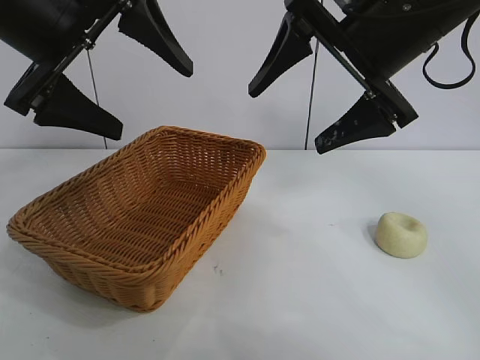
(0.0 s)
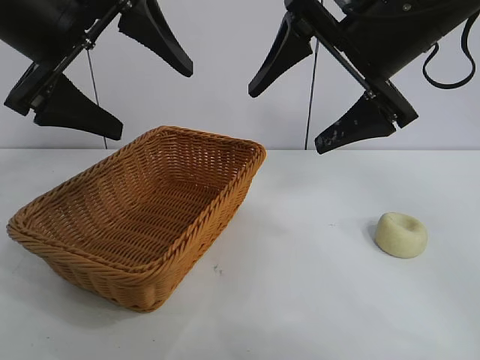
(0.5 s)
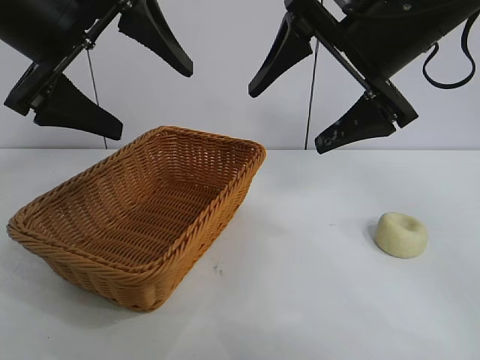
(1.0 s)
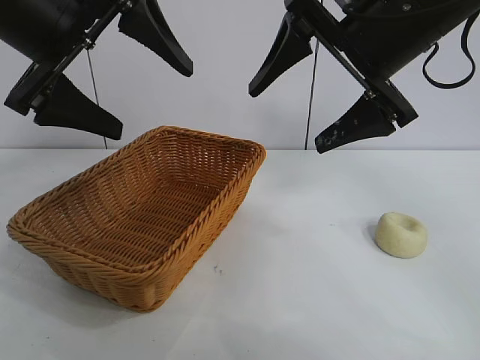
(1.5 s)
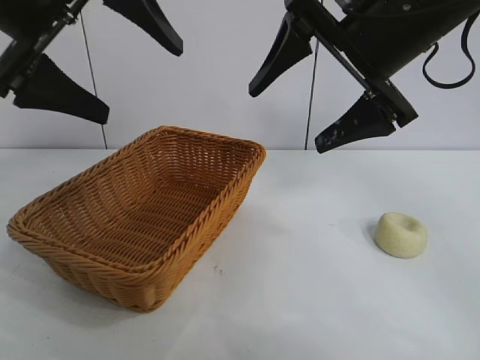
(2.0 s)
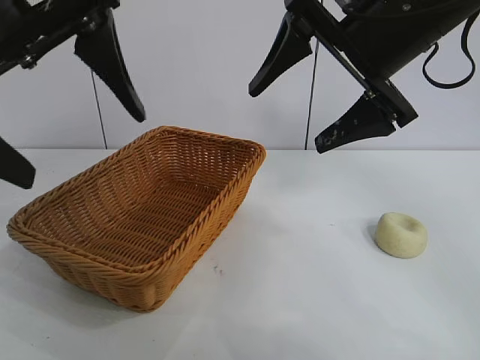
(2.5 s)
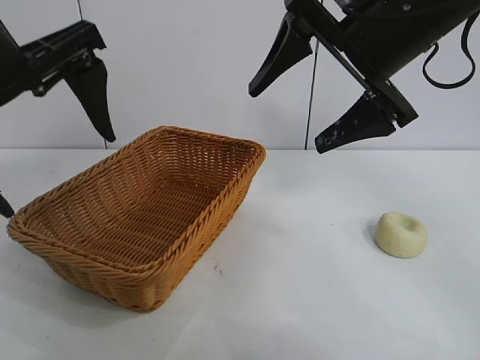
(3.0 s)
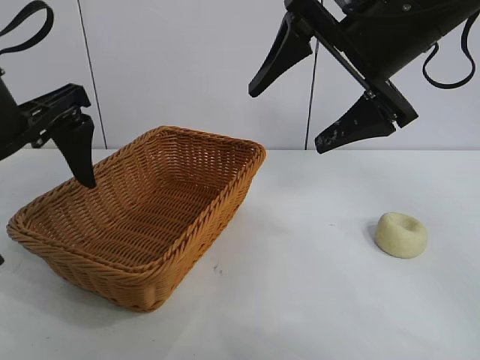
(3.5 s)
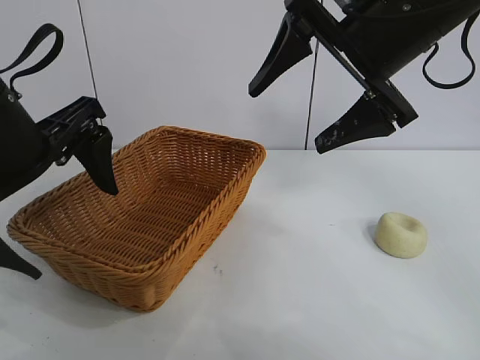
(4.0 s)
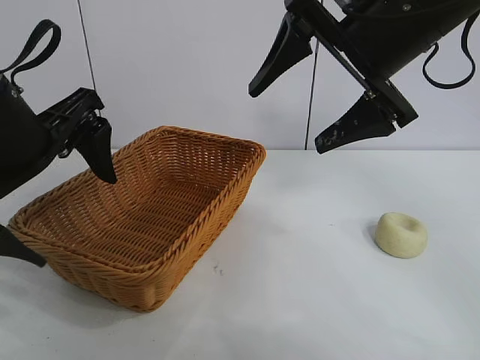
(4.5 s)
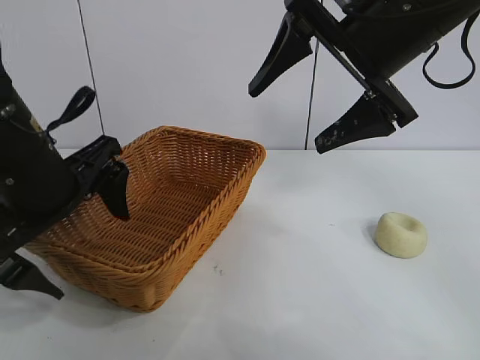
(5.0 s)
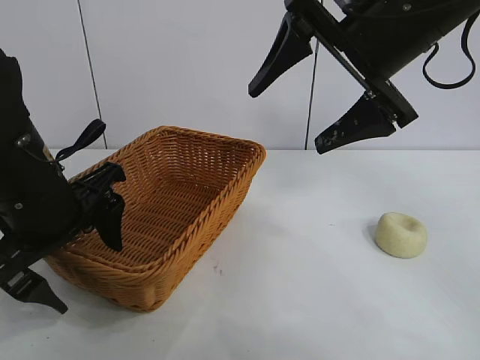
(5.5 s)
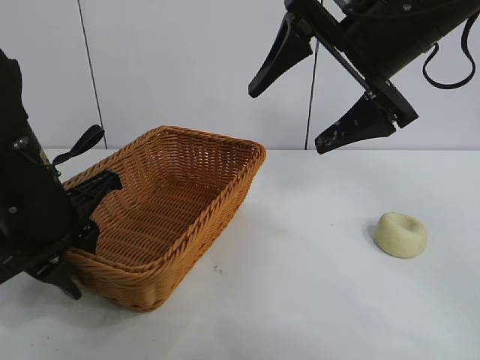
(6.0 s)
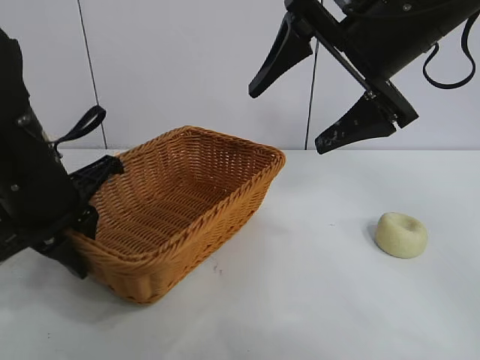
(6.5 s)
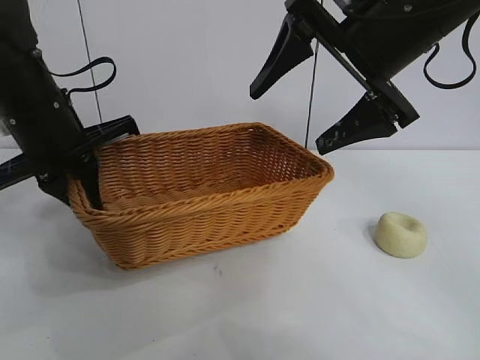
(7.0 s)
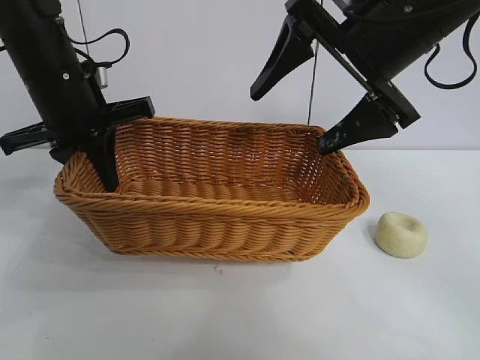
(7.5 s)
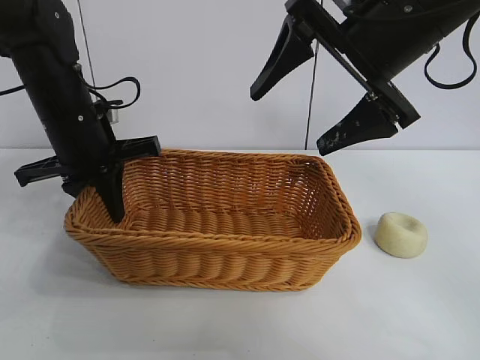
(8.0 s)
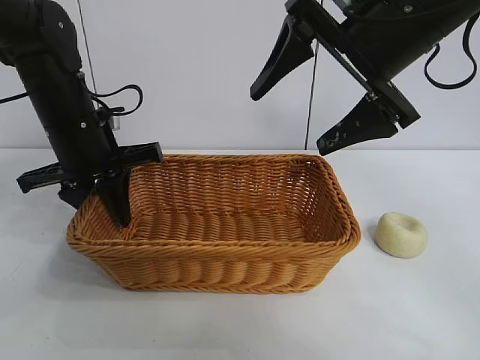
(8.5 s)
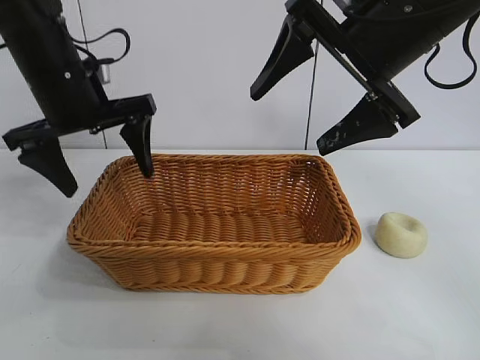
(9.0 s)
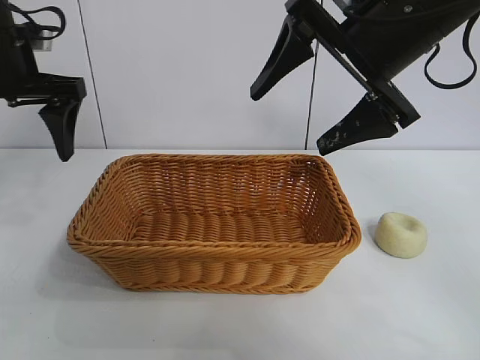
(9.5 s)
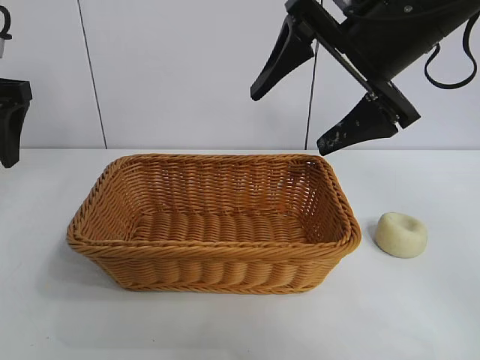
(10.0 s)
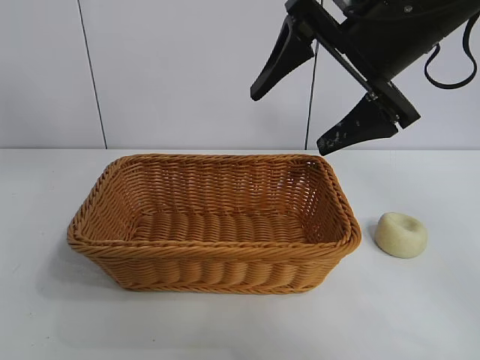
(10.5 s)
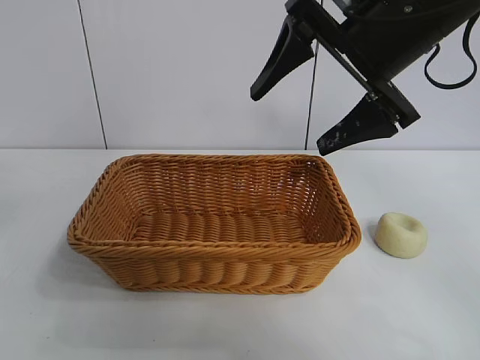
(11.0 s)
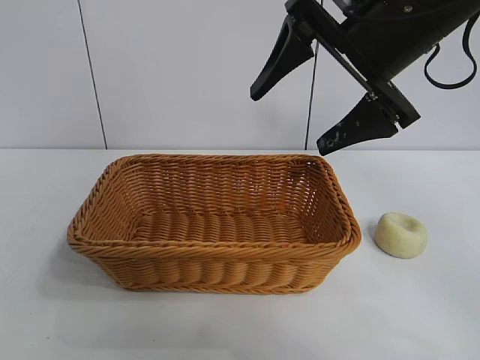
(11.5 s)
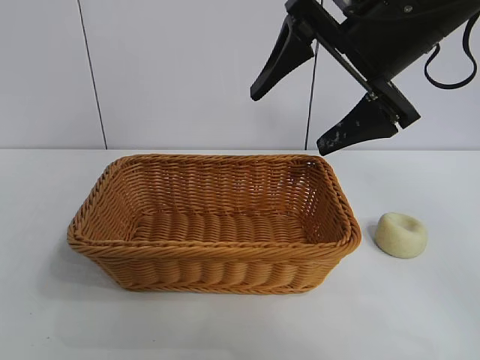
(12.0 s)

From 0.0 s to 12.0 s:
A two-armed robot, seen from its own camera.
Task of the whole recording: pick up the egg yolk pastry and put it into the basket.
Step, from 2.0 s to 6.0 s: Grasp the basket with left gripper.
Step, from 6.5 s to 8.5 s: Place the basket in the center of view with left gripper.

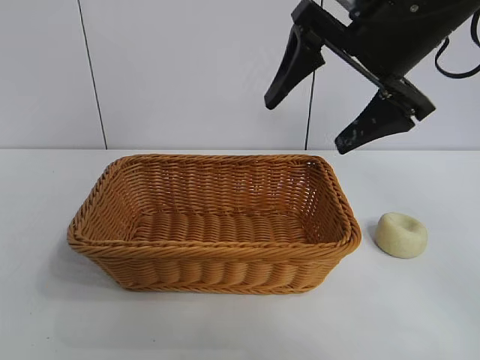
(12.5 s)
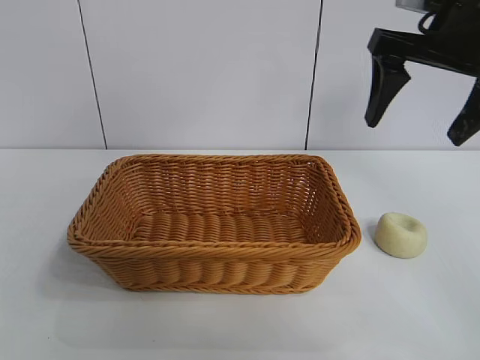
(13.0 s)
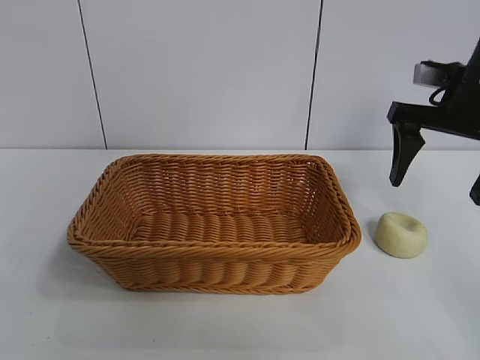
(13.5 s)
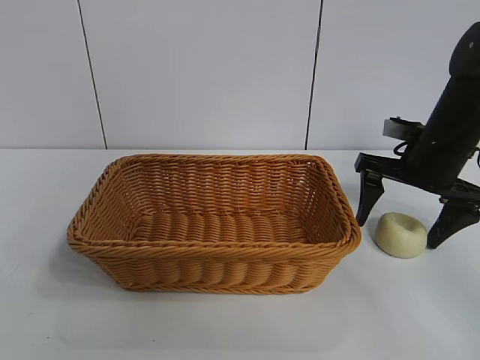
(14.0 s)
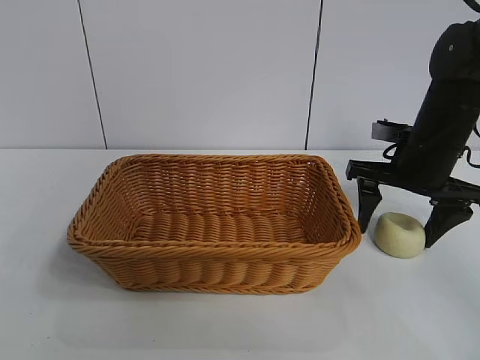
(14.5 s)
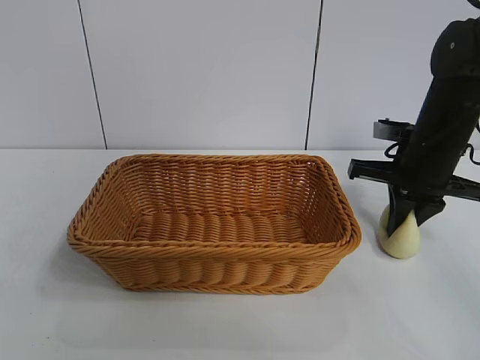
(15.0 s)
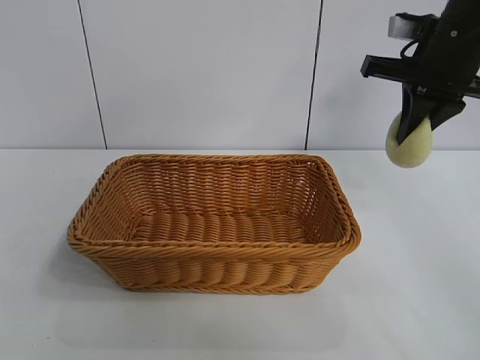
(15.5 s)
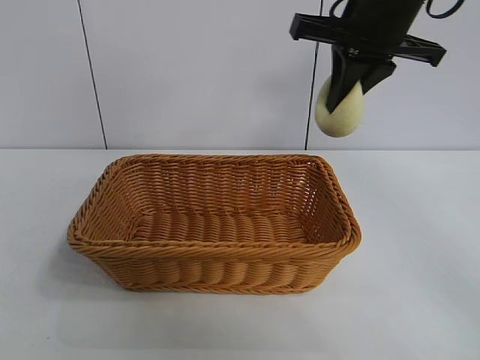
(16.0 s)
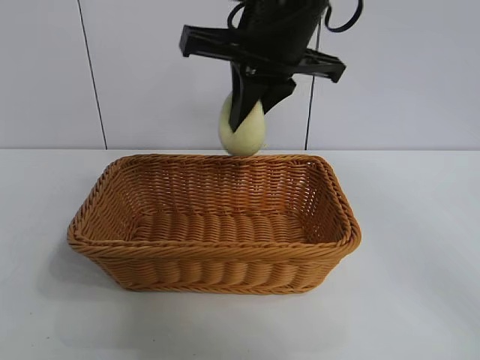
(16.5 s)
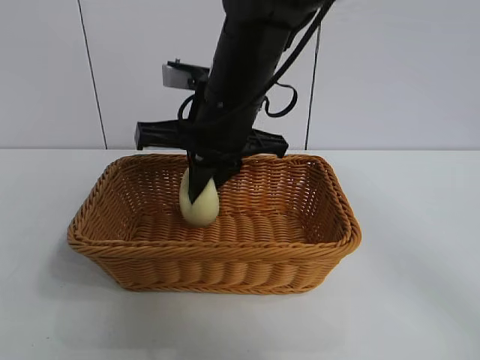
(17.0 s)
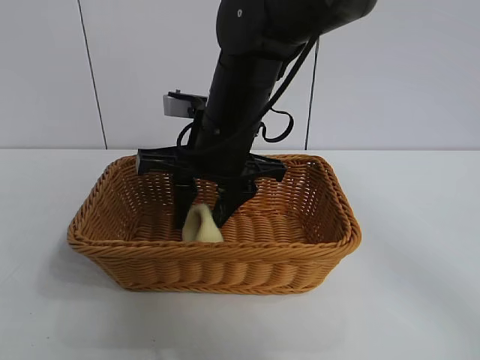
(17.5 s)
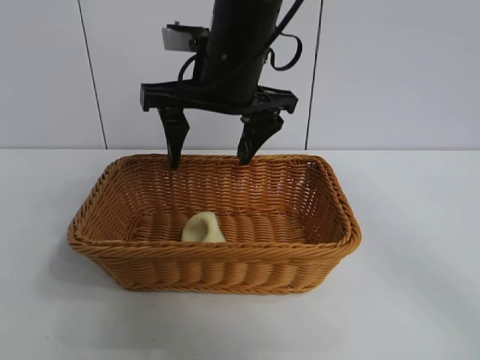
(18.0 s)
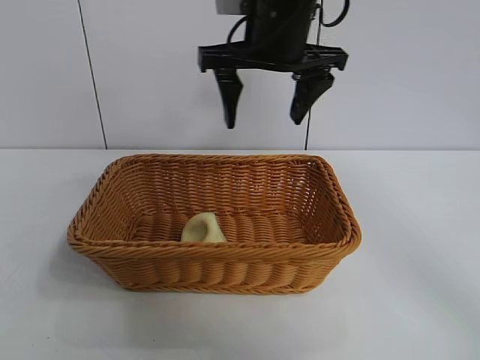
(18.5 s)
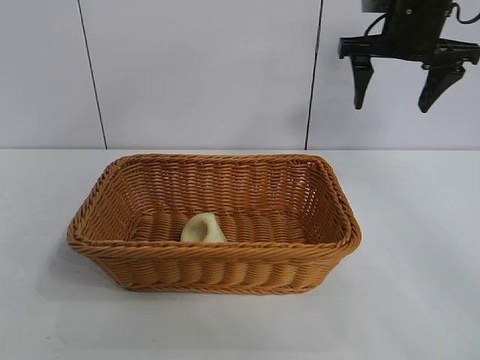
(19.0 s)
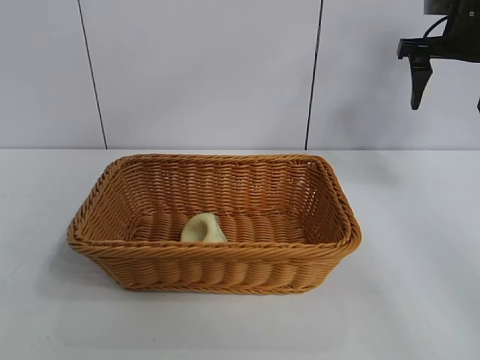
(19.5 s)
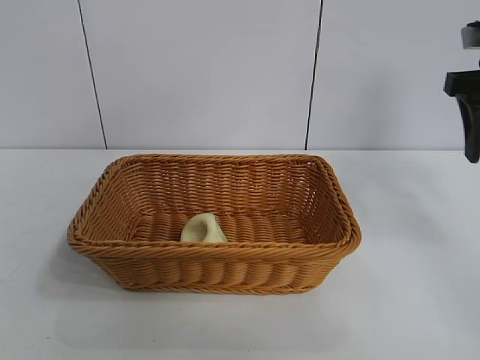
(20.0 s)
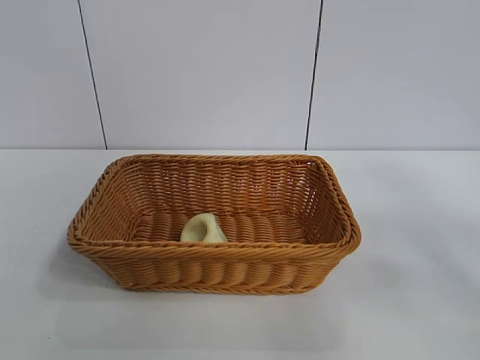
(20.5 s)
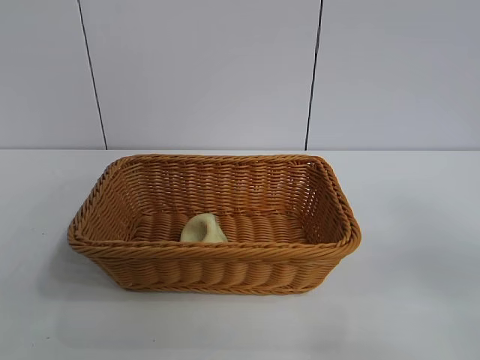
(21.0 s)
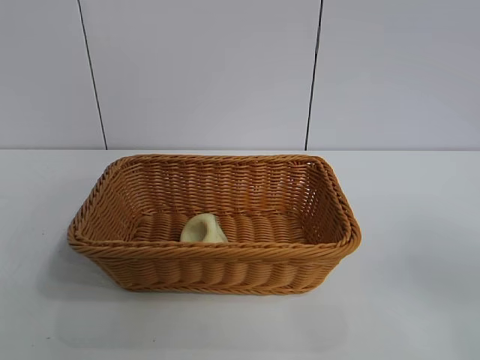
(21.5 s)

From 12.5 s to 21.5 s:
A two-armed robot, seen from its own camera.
Task of the whole recording: pick up the egg yolk pastry and put it into the basket.
Step, from 12.5 s to 15.0 s: Grasp egg yolk pastry with right gripper.
Step, from 15.5 s to 17.5 s: Place the egg yolk pastry in the basket with right gripper.

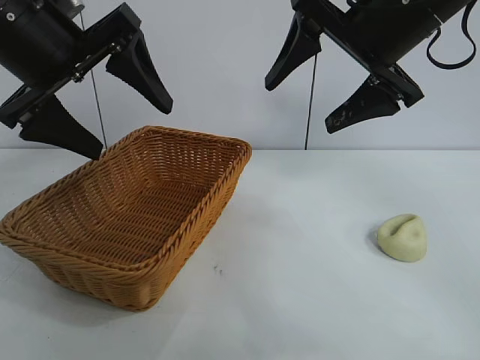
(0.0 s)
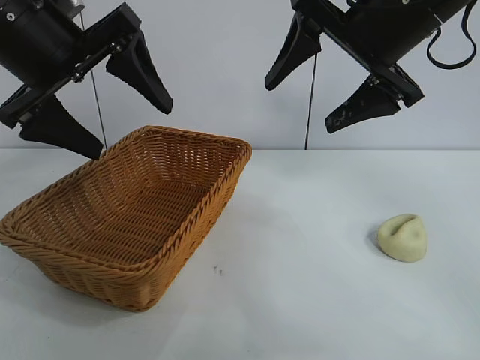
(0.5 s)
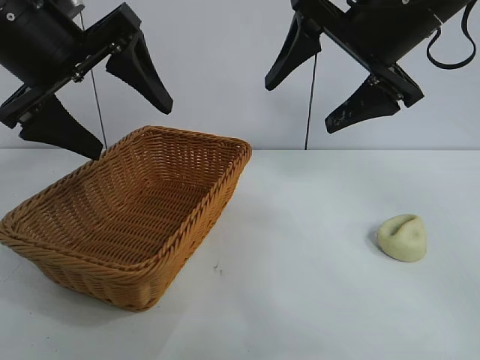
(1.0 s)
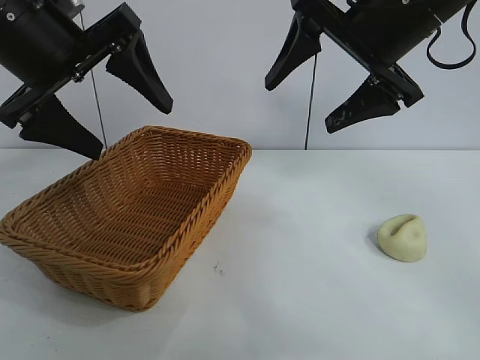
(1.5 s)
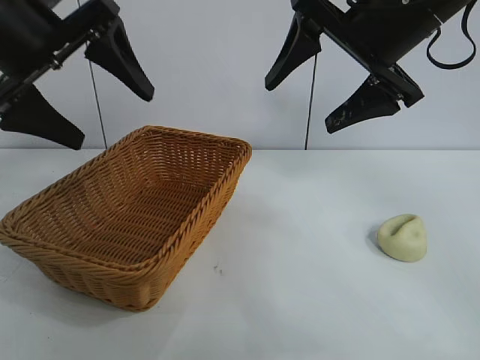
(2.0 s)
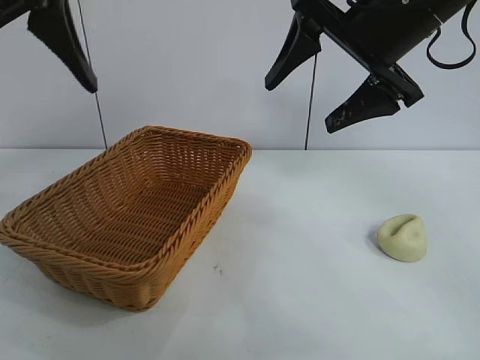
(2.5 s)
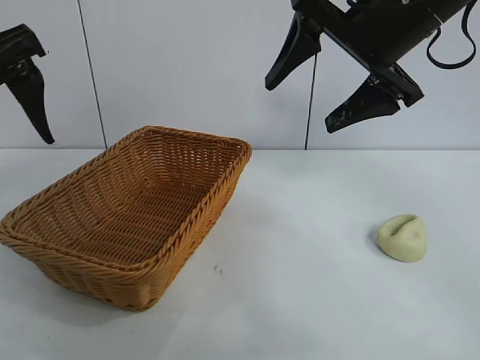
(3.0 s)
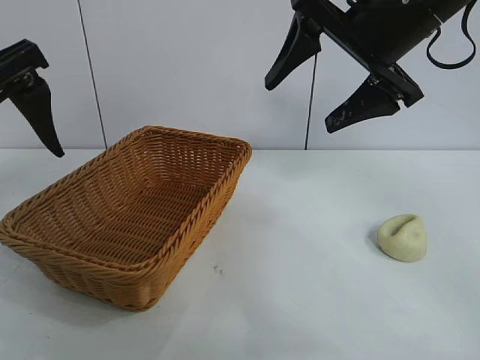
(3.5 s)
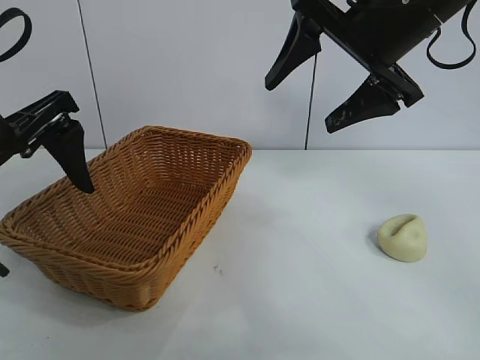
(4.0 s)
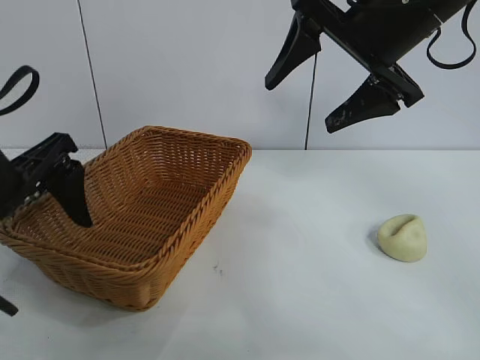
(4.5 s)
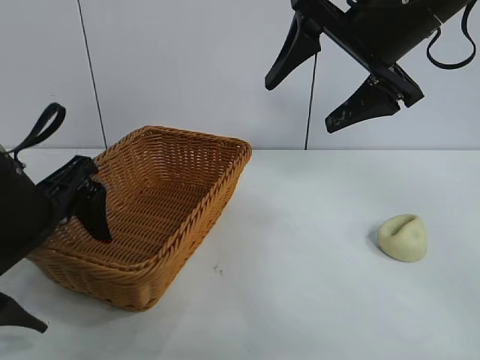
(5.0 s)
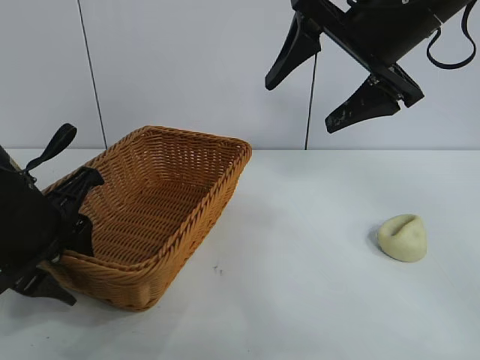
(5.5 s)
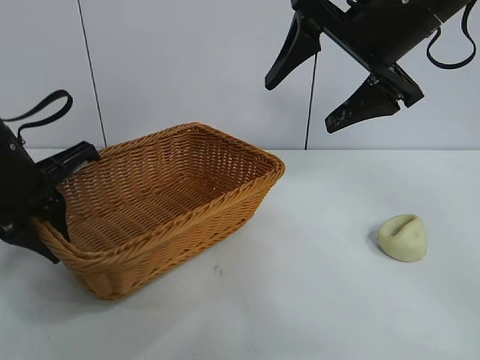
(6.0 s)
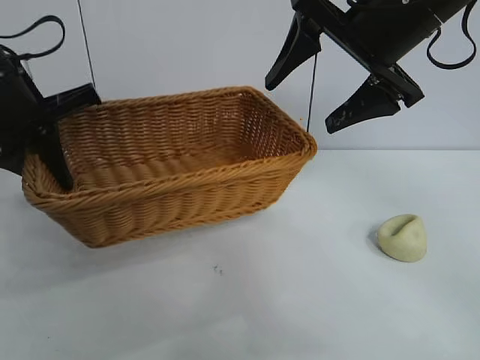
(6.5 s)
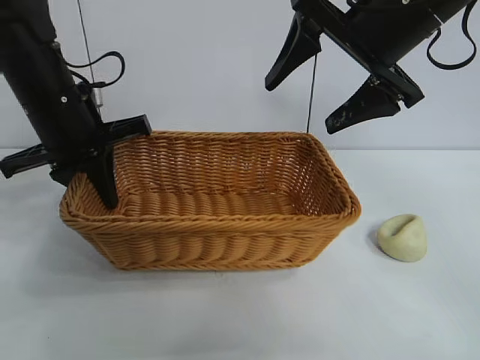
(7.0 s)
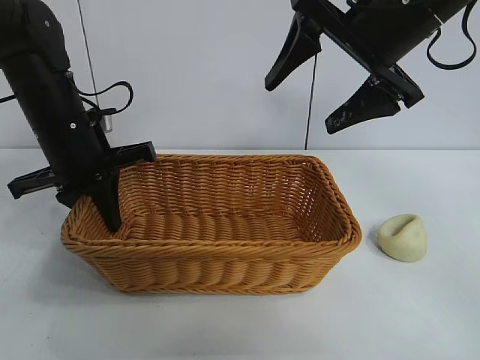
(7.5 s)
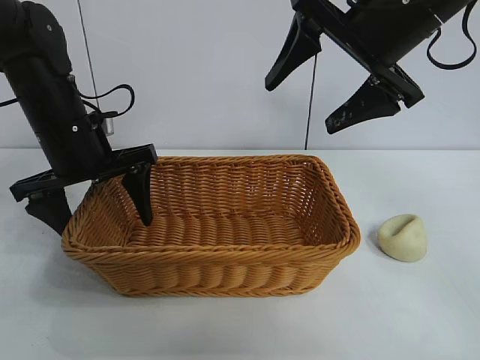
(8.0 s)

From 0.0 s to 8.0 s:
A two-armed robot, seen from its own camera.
Task of the whole recording: pick up the egg yolk pastry and put it into the basket.
Step, from 2.0 s to 5.5 s: Grasp the basket with left gripper.
Step, from 6.0 s to 7.5 s: Place the basket in the center of view with left gripper.
